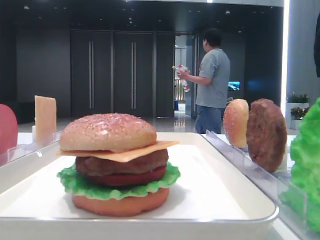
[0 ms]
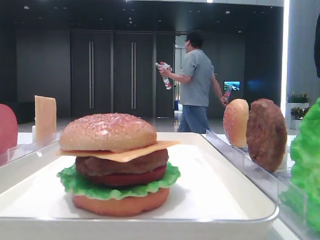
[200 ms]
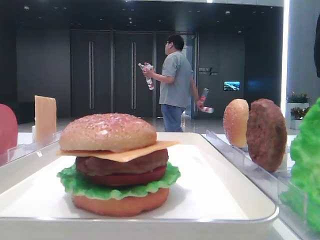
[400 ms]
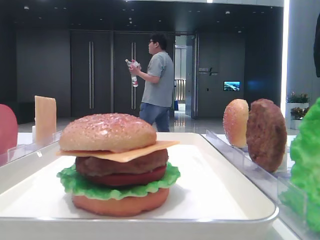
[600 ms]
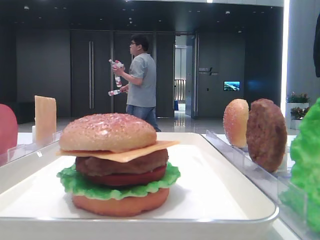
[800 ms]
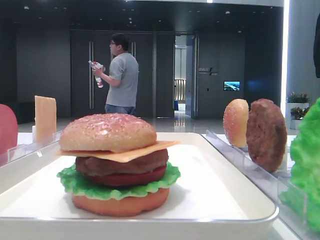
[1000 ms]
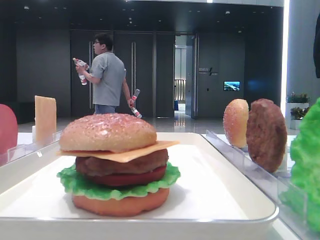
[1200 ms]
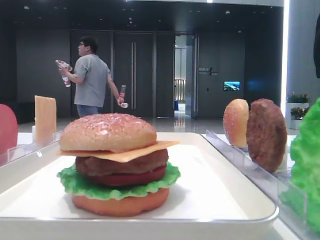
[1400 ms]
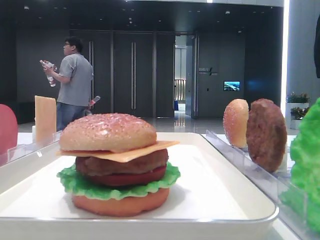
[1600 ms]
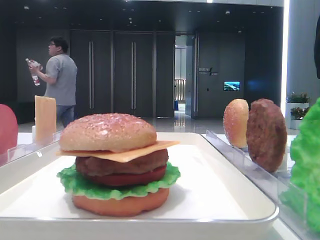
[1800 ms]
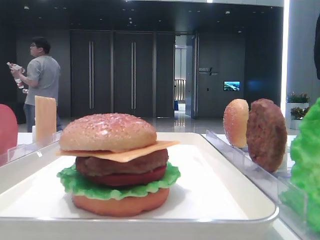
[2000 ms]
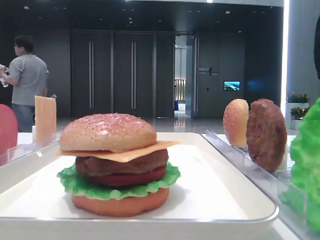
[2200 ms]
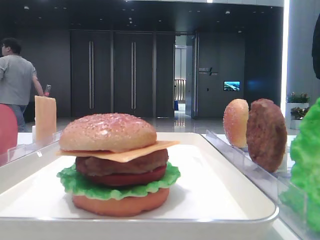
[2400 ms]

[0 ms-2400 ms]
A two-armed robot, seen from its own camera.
0 ms to 1200 ms: The grippers stay close to where they were, moving slightly.
1200 ms to 2400 ms: Both grippers stay about where they are.

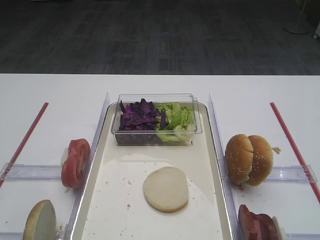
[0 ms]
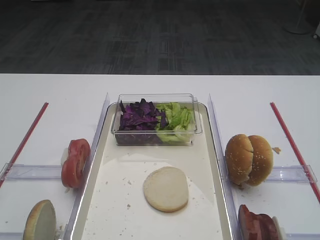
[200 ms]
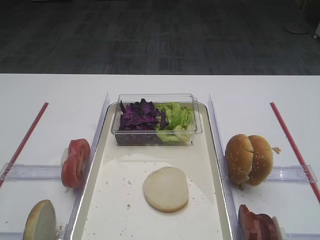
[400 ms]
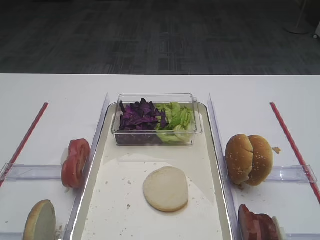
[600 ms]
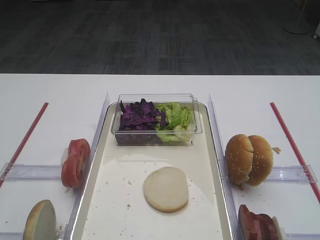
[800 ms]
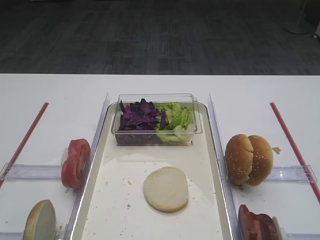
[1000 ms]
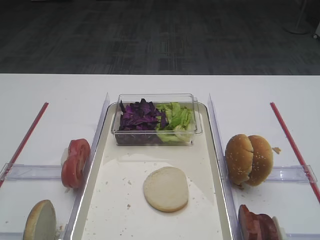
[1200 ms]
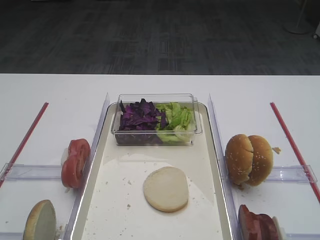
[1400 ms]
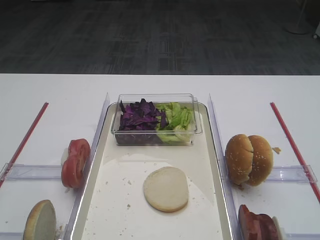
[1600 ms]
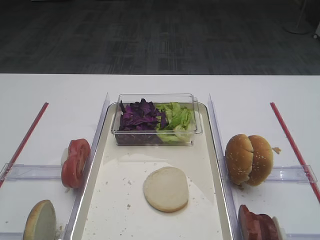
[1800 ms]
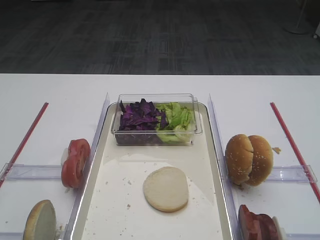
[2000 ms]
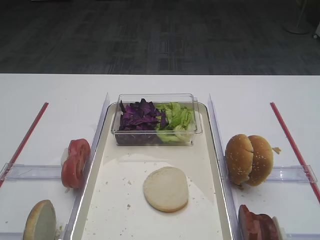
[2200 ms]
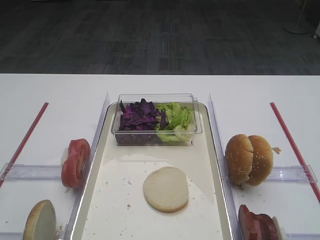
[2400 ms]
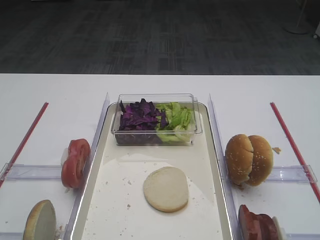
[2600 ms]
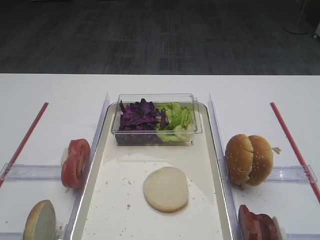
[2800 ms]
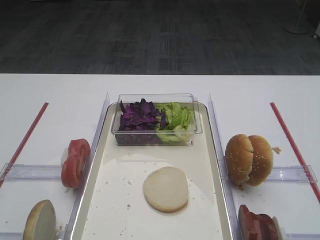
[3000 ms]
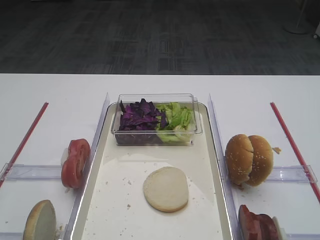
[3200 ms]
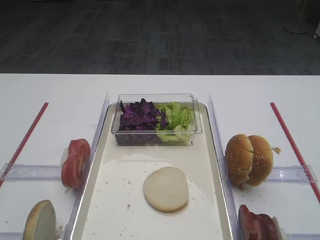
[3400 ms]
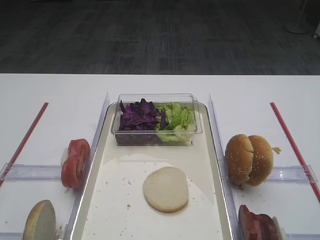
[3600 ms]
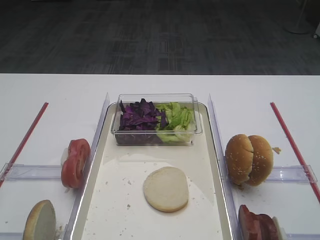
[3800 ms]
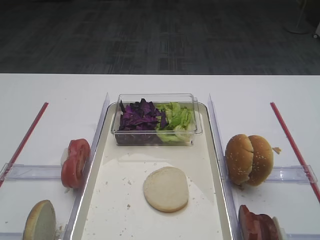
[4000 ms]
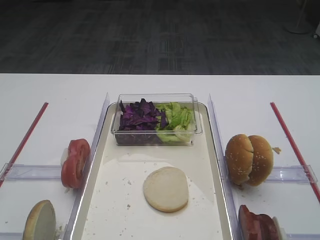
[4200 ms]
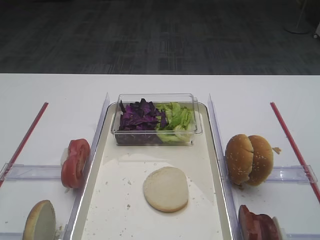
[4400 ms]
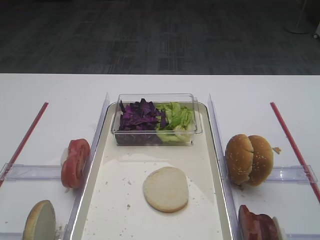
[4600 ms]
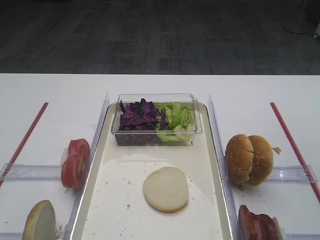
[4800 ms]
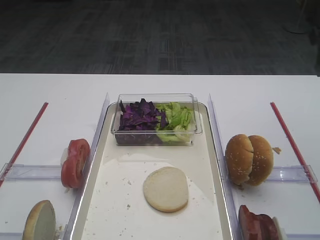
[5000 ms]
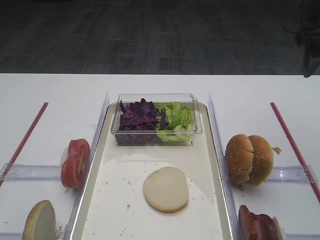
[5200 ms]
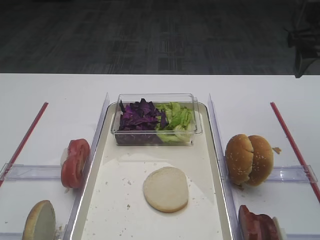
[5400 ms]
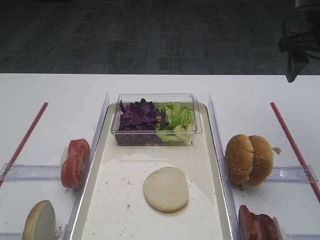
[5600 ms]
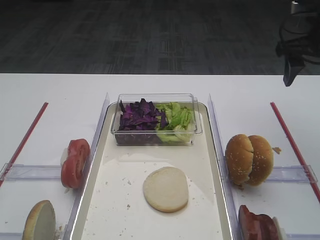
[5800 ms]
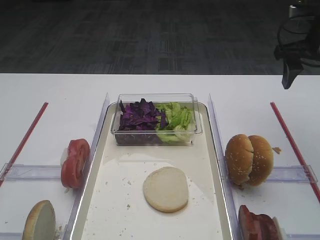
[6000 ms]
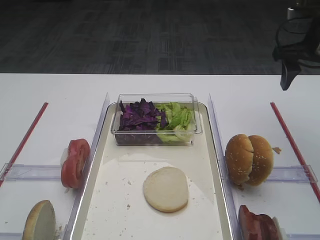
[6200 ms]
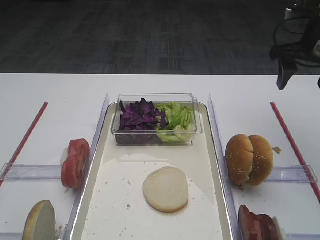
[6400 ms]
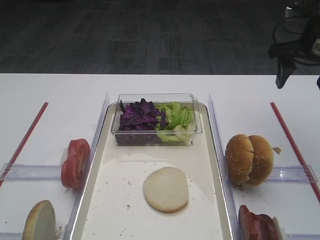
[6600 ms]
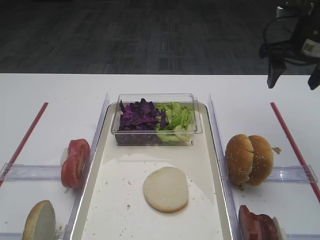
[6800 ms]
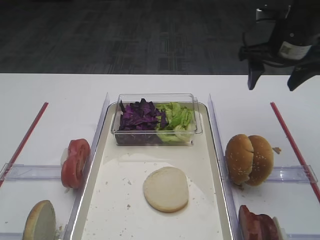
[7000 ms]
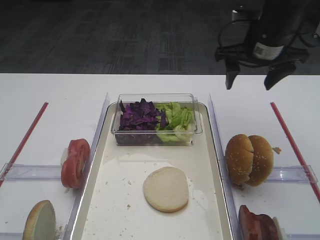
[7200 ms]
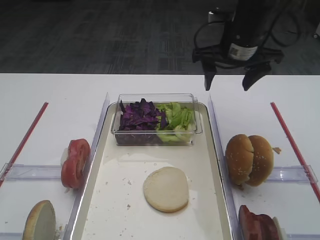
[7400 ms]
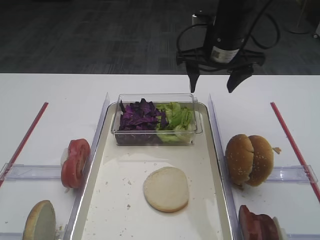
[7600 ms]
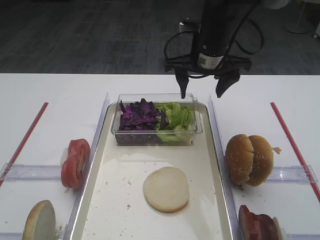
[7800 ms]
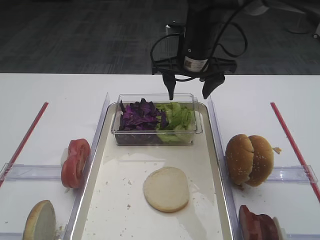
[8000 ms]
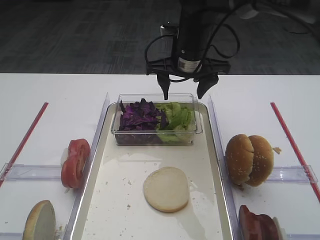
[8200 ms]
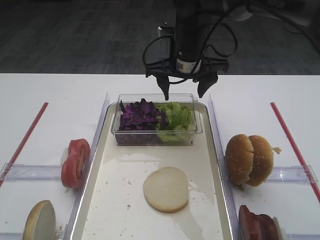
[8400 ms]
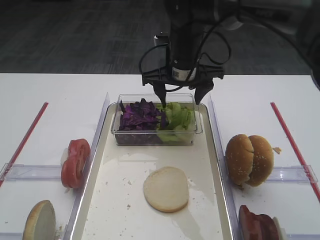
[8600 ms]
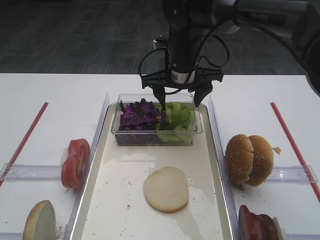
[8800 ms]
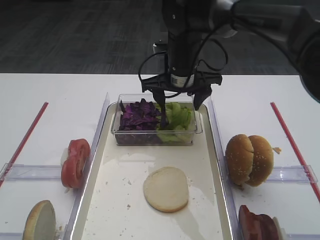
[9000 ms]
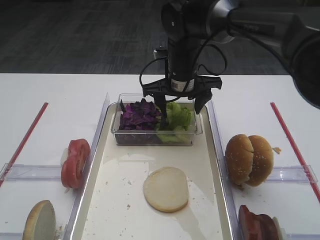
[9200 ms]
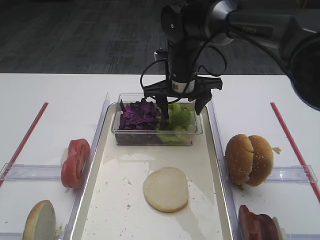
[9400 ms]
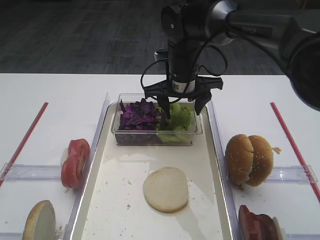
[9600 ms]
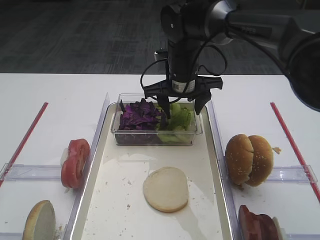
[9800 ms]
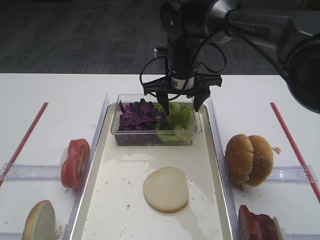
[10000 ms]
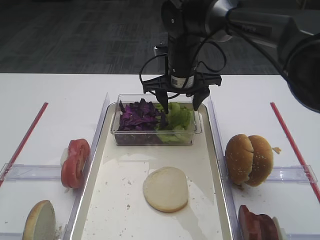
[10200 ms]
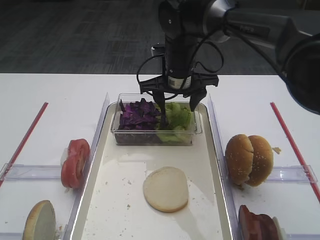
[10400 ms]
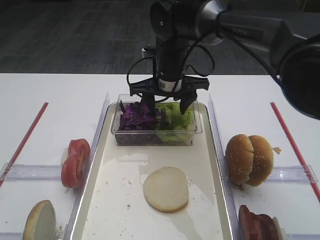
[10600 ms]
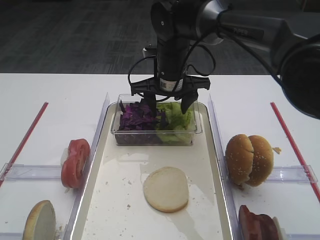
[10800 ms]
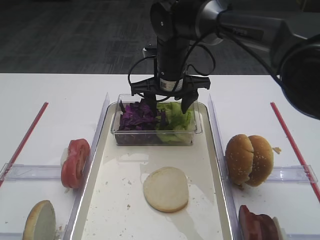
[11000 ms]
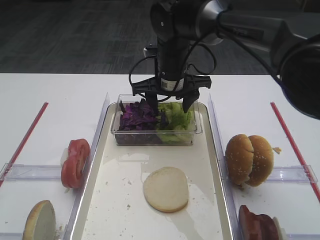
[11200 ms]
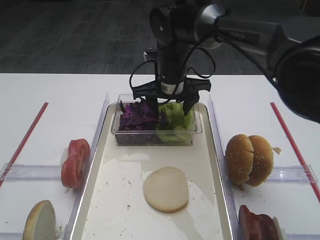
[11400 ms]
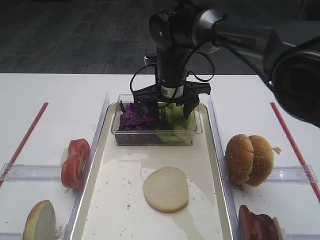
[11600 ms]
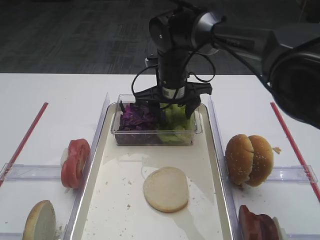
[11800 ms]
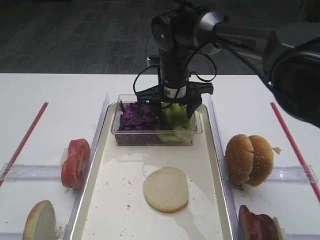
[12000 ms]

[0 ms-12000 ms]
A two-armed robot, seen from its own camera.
4400 ms to 6000 ms: The right gripper is displaced forward and downward by some 20 cm.
6000 ms to 7600 ms: The right gripper is displaced to the left by roughly 15 cm.
7600 ms to 9000 ms: The right gripper is displaced to the left and downward by about 10 cm.
9000 ms to 12000 ms: The grippers make only small movements.

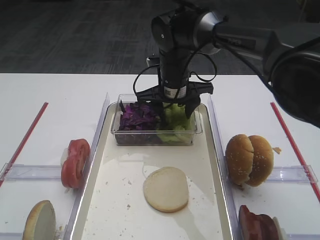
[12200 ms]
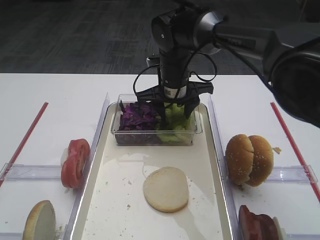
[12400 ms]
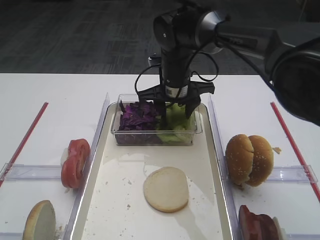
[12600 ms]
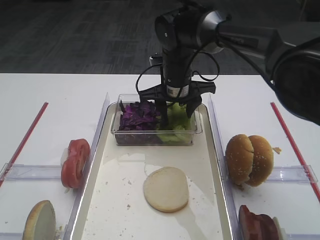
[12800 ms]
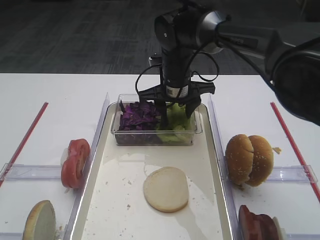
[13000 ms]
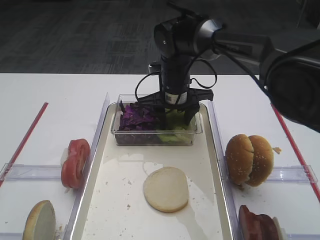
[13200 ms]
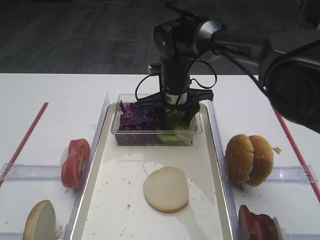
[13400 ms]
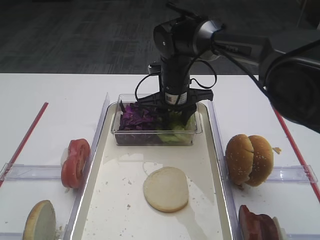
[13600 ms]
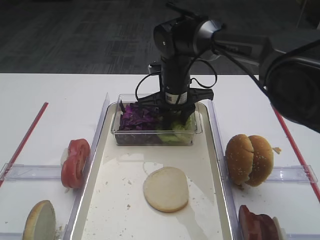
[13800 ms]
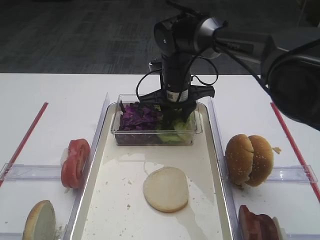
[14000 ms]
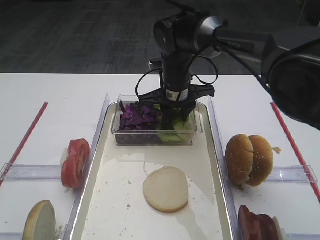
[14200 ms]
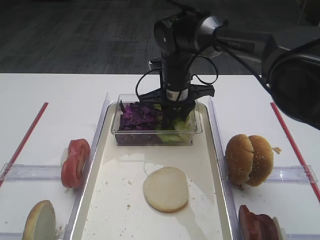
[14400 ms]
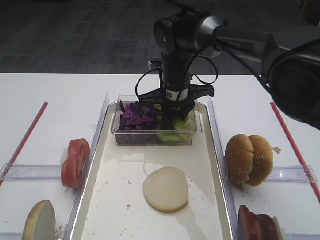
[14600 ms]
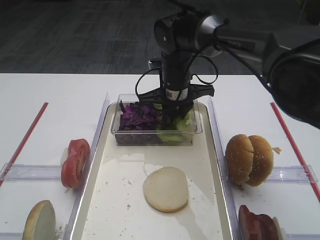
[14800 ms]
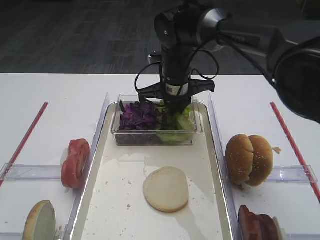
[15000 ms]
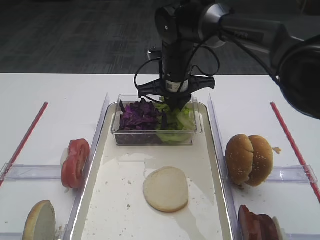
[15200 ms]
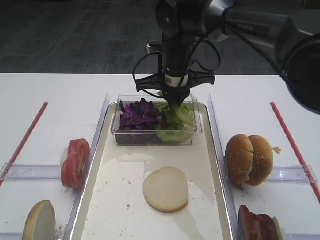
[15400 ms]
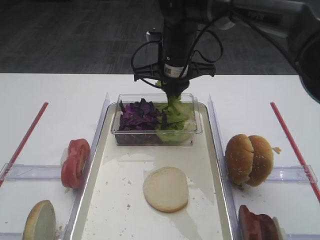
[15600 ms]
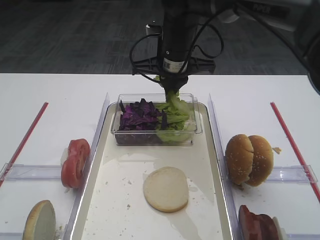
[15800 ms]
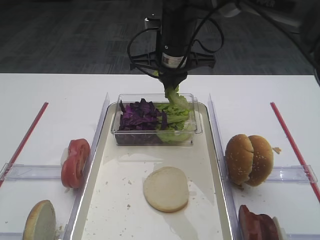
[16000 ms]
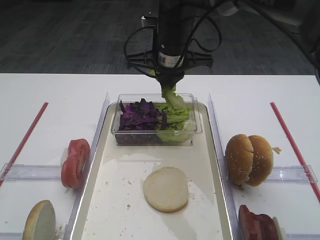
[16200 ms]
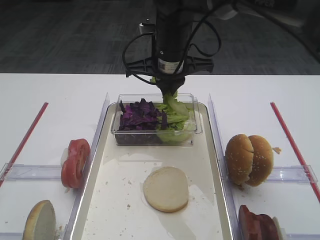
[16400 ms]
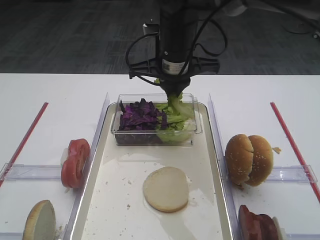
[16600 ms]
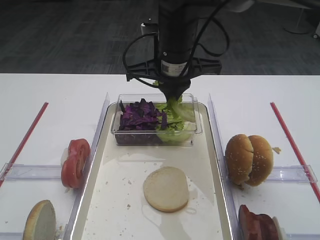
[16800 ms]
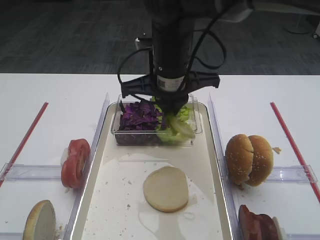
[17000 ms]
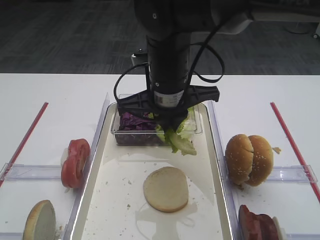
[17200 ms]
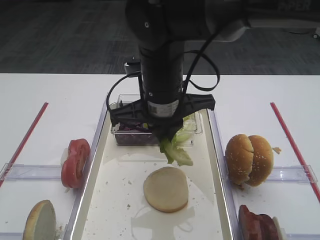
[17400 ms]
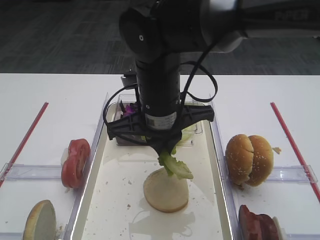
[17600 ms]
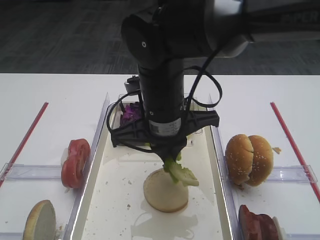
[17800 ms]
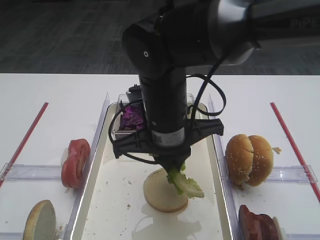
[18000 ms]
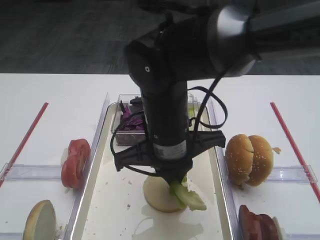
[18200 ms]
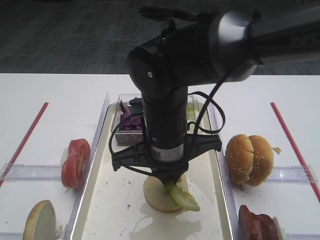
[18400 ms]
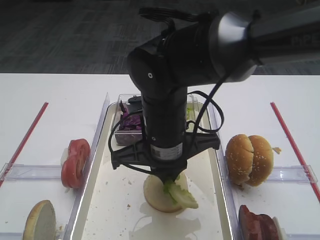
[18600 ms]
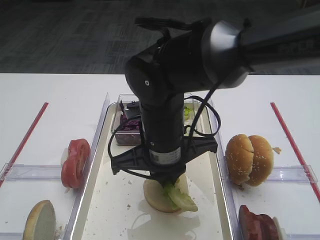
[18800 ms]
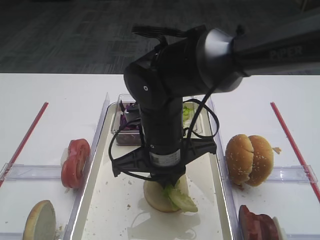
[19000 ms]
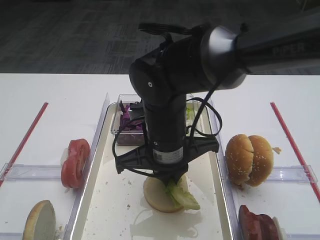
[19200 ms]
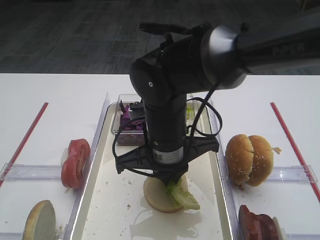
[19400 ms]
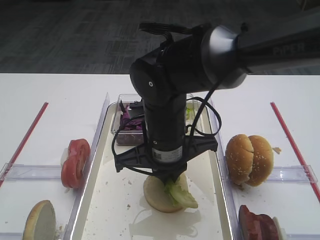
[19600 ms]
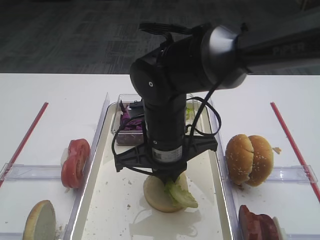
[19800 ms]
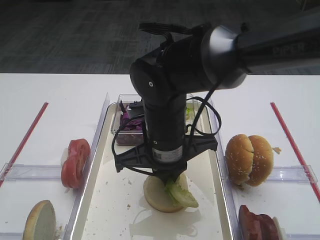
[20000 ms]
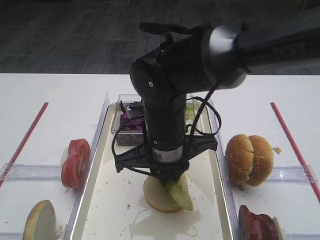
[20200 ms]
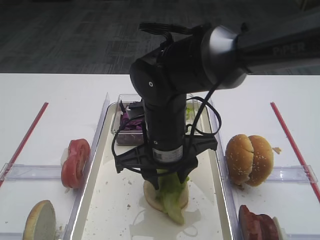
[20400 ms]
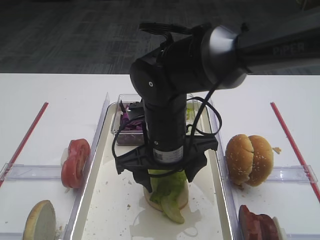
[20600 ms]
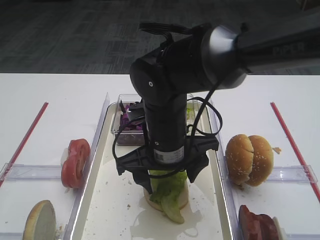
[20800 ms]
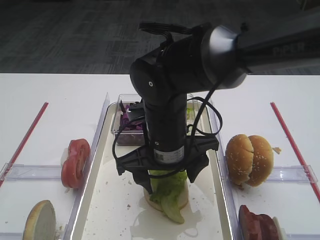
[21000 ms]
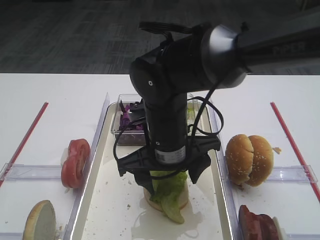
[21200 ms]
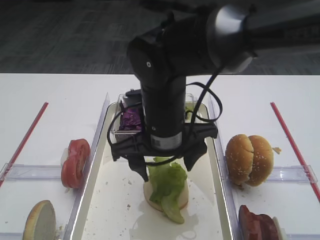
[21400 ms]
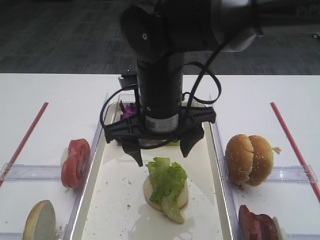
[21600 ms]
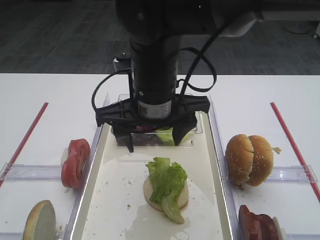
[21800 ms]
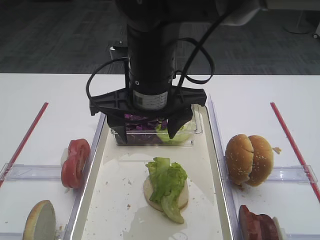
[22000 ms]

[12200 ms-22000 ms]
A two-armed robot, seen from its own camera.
Step, 12200 ms to 15200 ms: Pick up the lettuce leaf with the right gripper.
Step, 15400 ms to 21200 ms: Place the lettuce leaf on the bread slice with the right gripper.
12200 ms to 13600 ms: The grippers move only a little.
13600 ms to 15000 ms: The right gripper closes its fingers.
15000 ms to 16400 ms: The right gripper goes about 5 cm upward.
16400 ms to 17800 ms: The right gripper moves backward, approximately 10 cm.
17800 ms to 19200 ms: The grippers make only small movements.
19200 ms to 20600 ms: The right gripper opens its fingers.
20600 ms to 22000 ms: The right gripper shifts roughly 10 cm upward.
